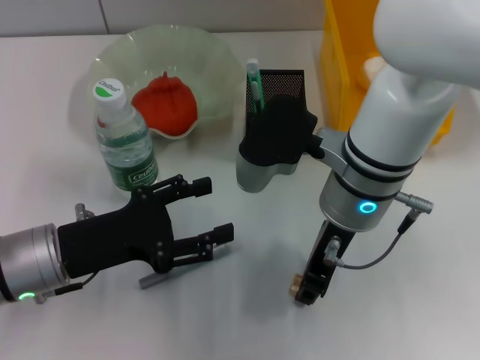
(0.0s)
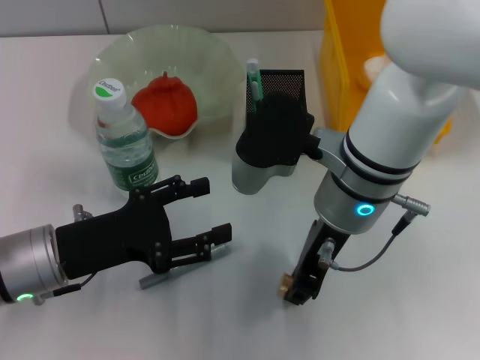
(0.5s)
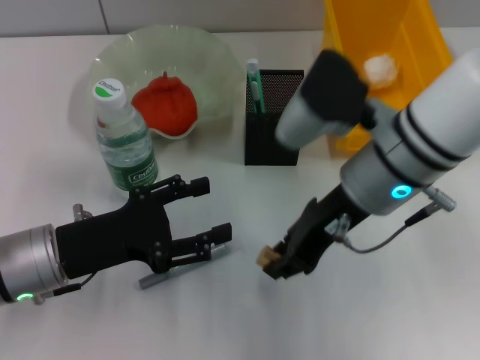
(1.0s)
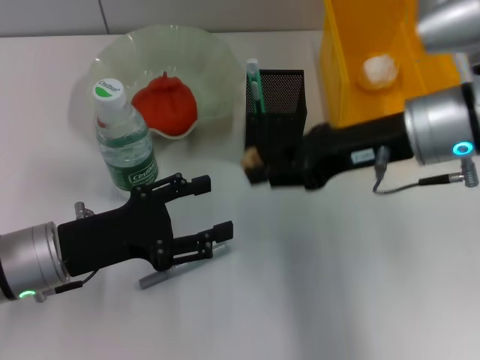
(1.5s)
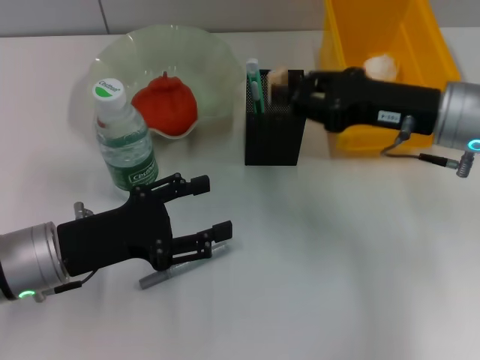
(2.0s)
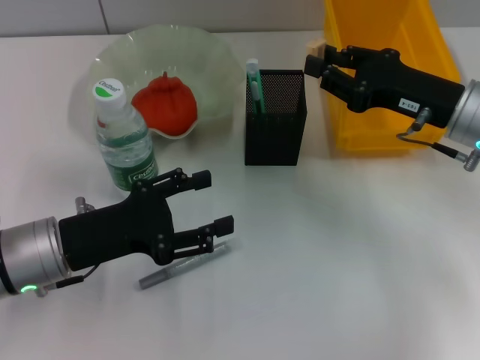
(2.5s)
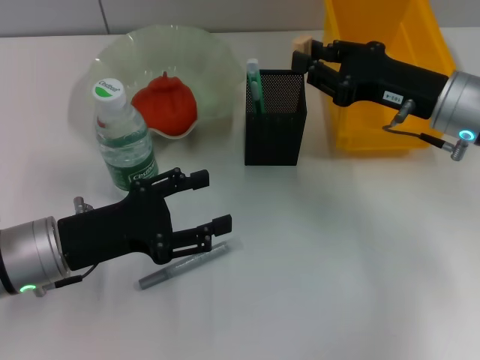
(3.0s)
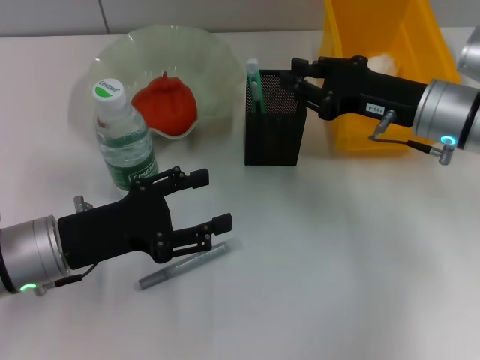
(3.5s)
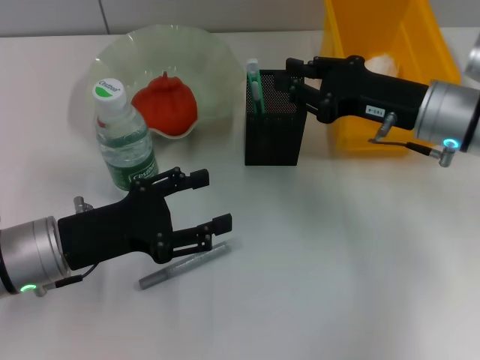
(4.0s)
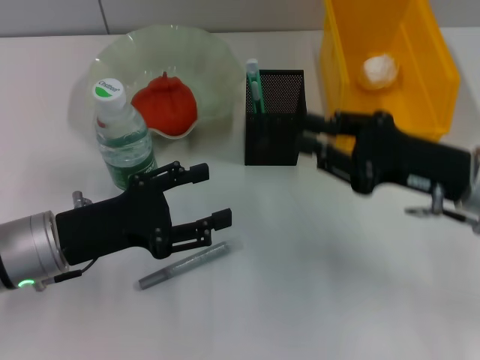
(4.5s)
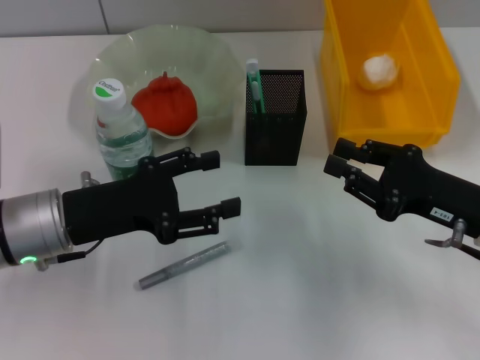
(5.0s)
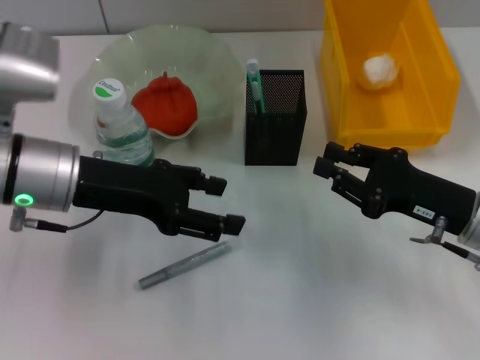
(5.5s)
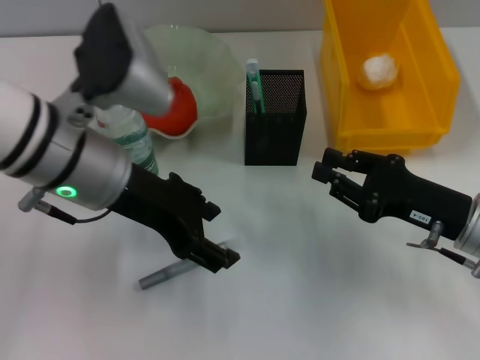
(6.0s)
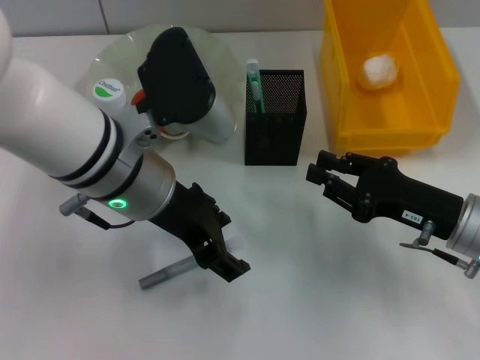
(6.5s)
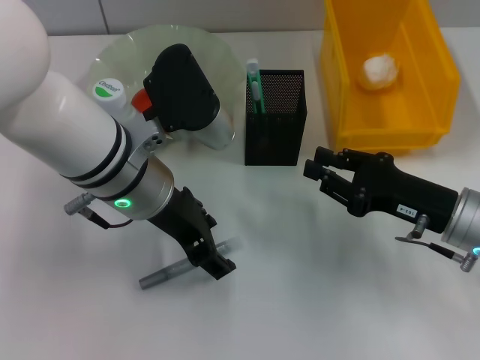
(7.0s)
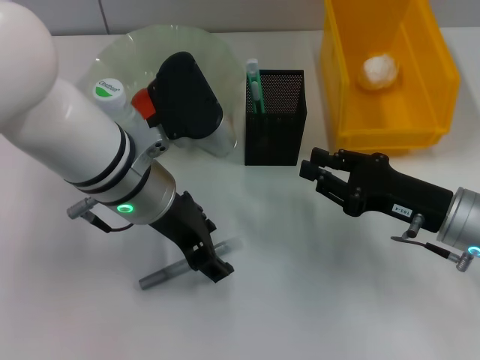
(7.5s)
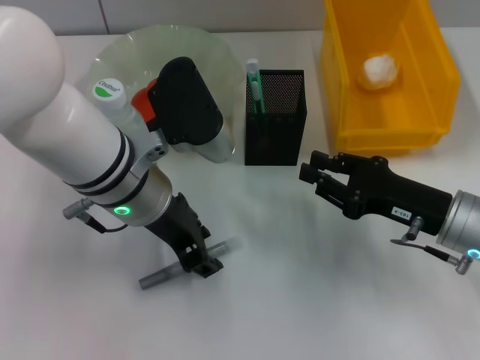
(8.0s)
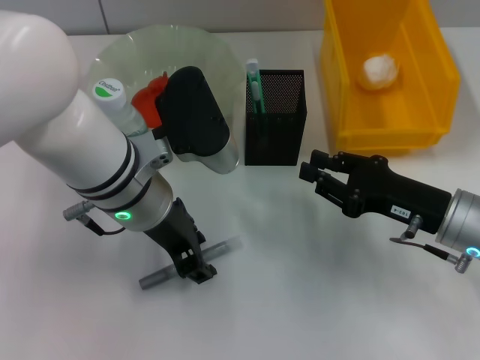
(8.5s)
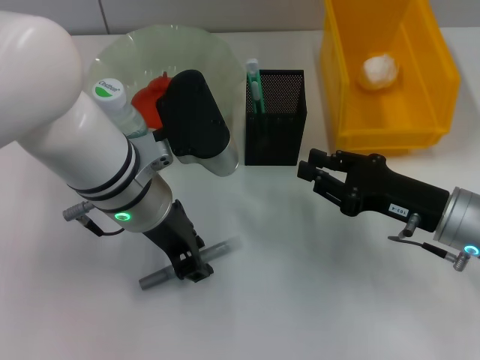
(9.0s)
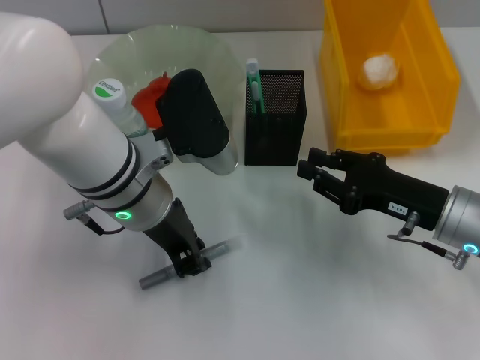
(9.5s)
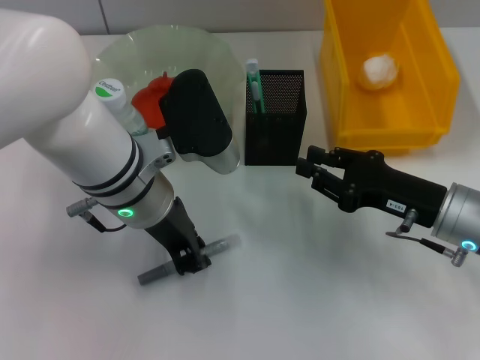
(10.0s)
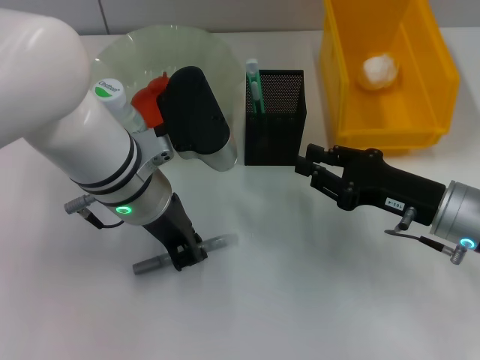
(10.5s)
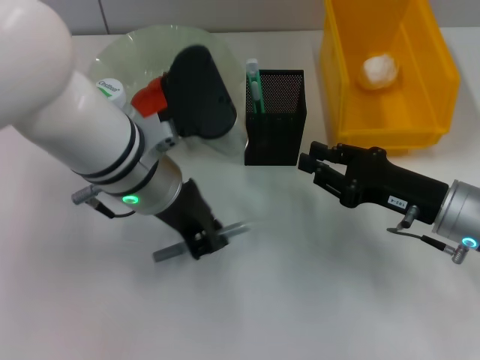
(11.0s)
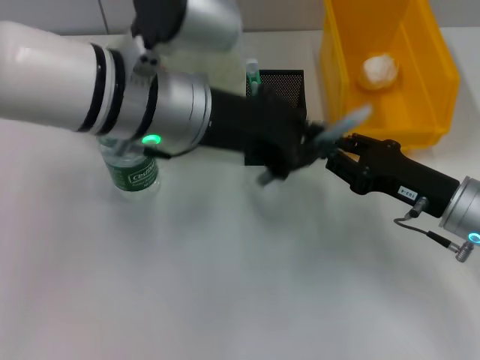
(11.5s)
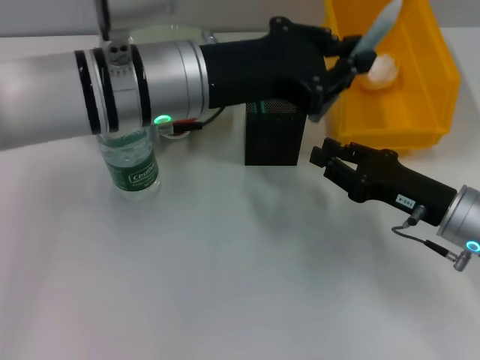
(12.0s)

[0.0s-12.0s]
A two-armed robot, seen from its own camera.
Step, 0.5s to 3.5s: Put the eraser into the pen holder with the right hand.
Step, 4.0s to 10.5s: Grab the gray glue with the left hand.
0.0s to 2.0s: The right gripper is displaced to the right by approximately 15 cm.
2.0s to 4.0s: The grippers move only a little.
4.0s to 6.0s: The left gripper is displaced upward, to the right and forward by roughly 15 cm. The right gripper is displaced backward and downward by roughly 10 cm.
6.0s to 8.0s: The left gripper moves about 5 cm.
8.0s to 10.0s: The left gripper closes its fingers.
10.0s to 12.0s: The left gripper heads upward, covering approximately 5 cm.

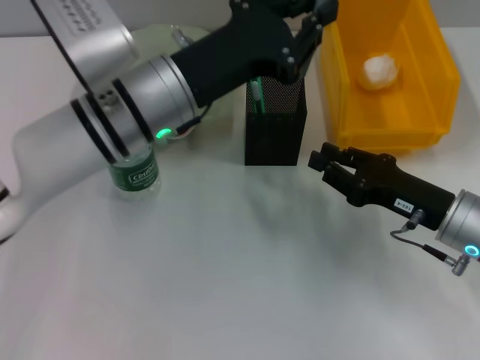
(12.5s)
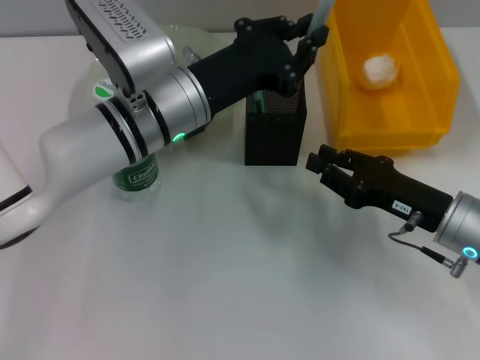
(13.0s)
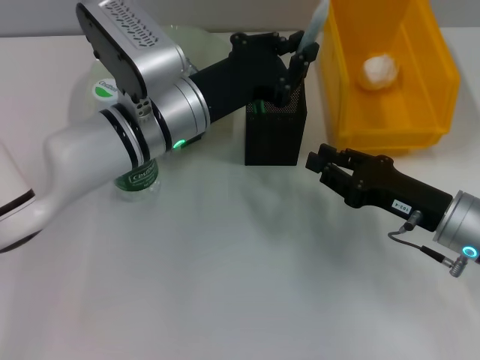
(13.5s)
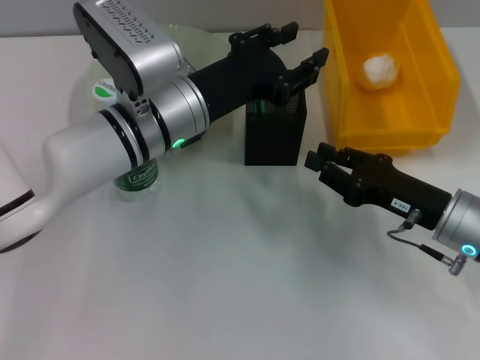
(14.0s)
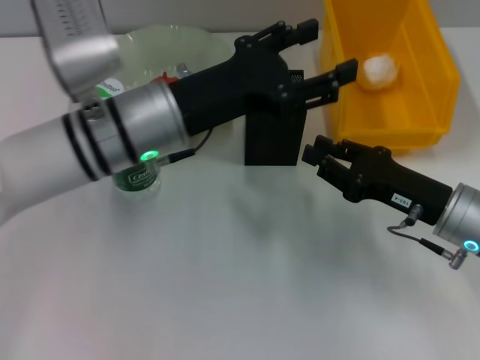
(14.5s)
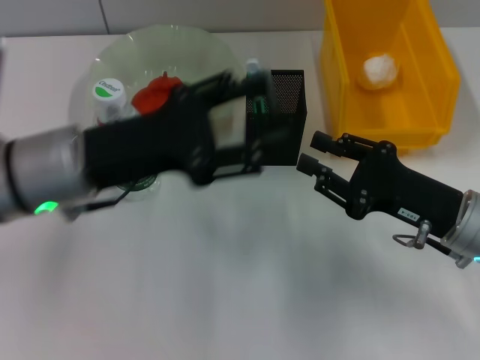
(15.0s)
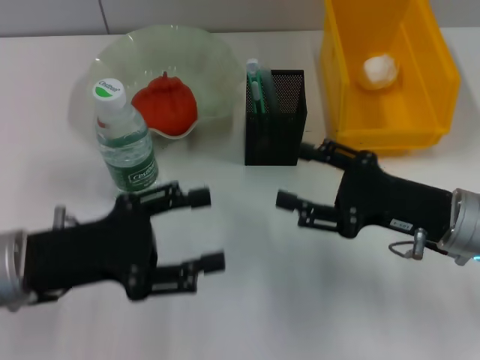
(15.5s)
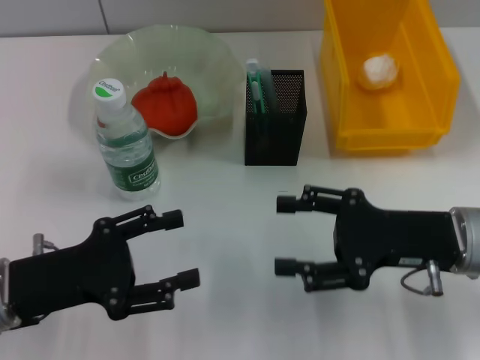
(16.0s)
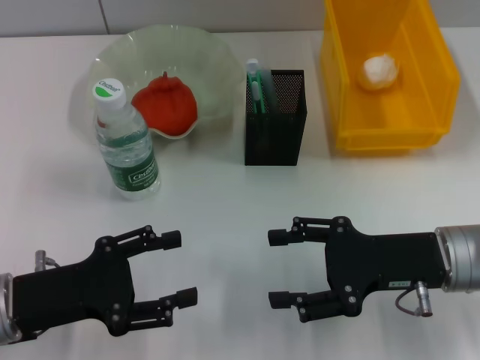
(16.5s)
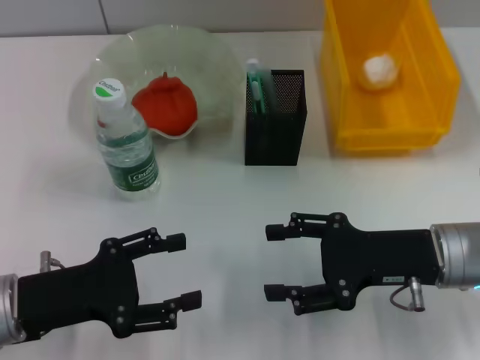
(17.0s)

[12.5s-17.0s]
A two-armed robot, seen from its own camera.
12.5s to 14.5s: The left gripper opens up.
14.5s to 17.0s: The right gripper opens its fingers. The left gripper goes about 20 cm to the left, backward and downward.

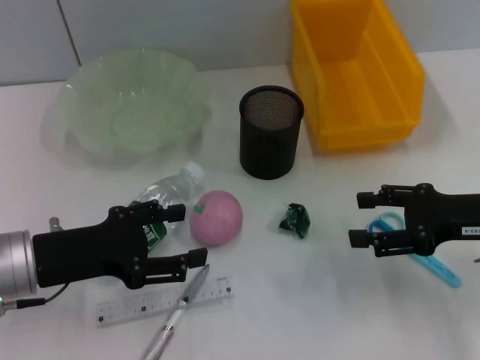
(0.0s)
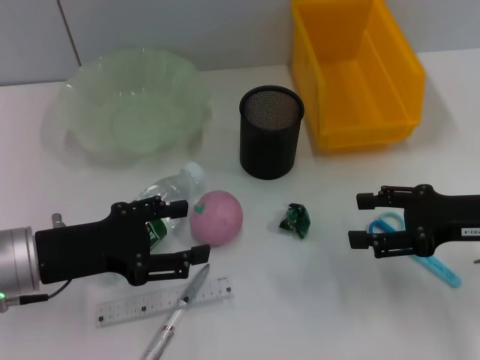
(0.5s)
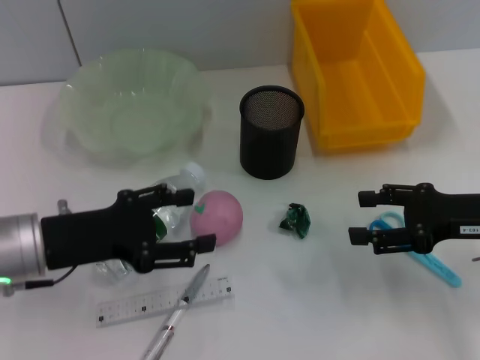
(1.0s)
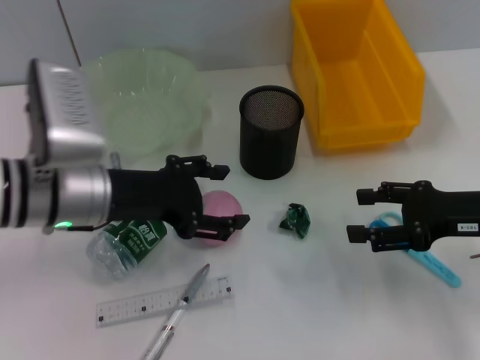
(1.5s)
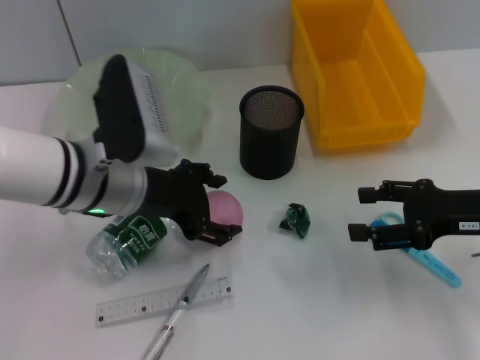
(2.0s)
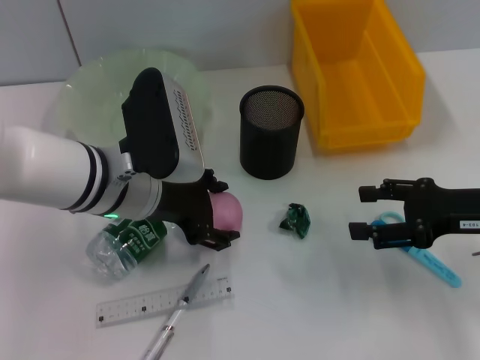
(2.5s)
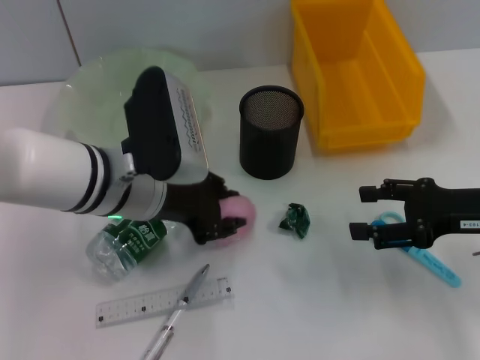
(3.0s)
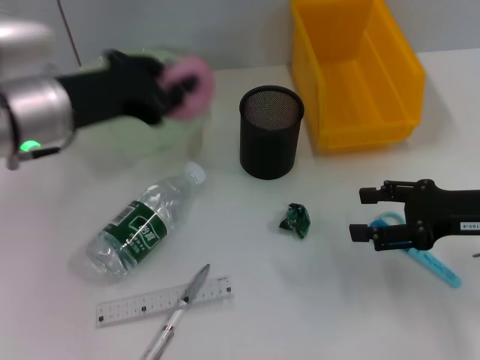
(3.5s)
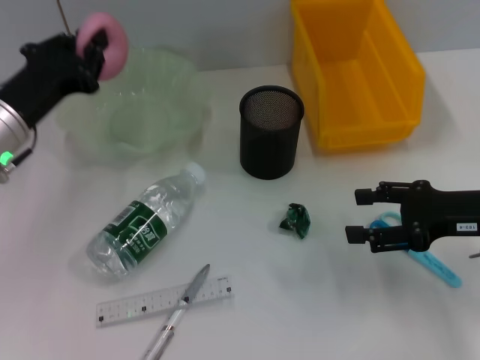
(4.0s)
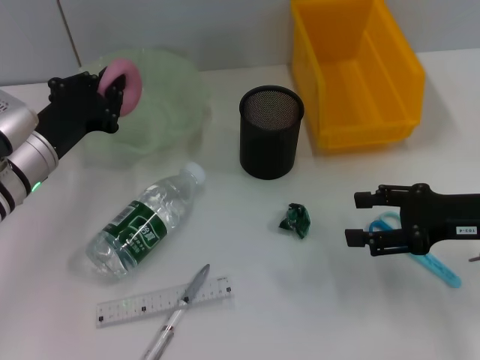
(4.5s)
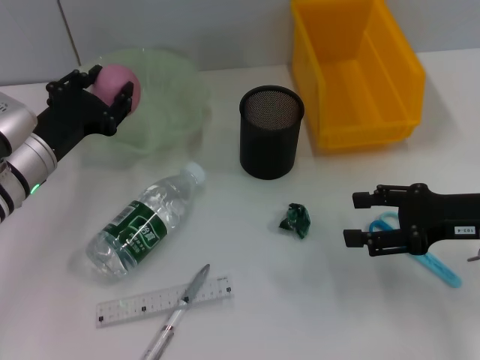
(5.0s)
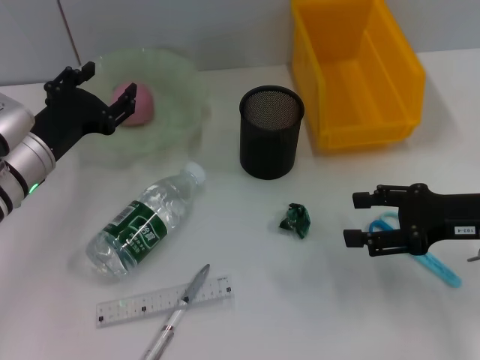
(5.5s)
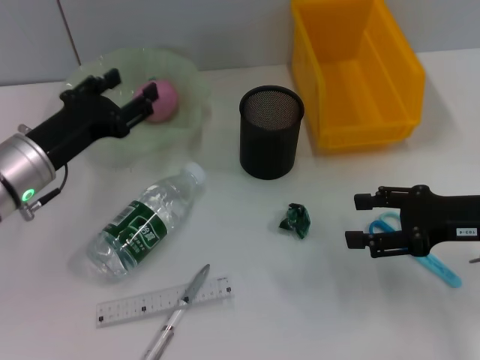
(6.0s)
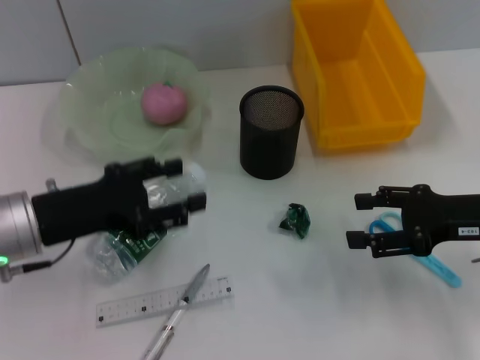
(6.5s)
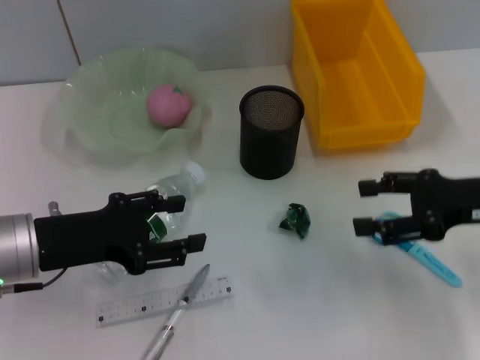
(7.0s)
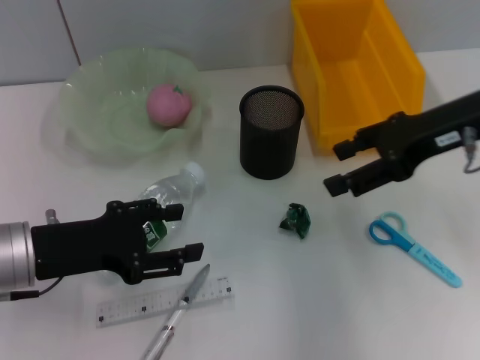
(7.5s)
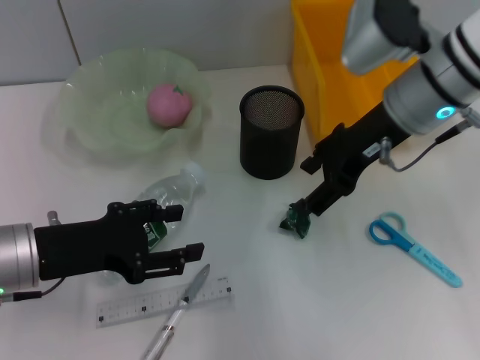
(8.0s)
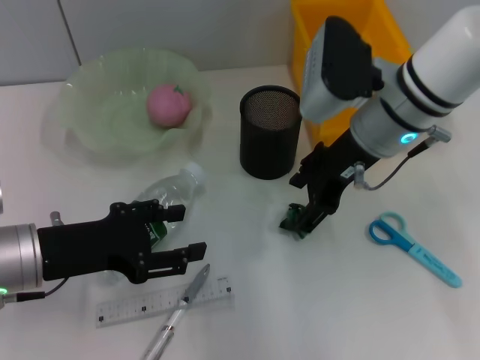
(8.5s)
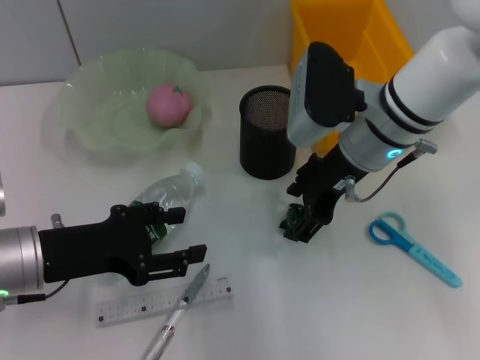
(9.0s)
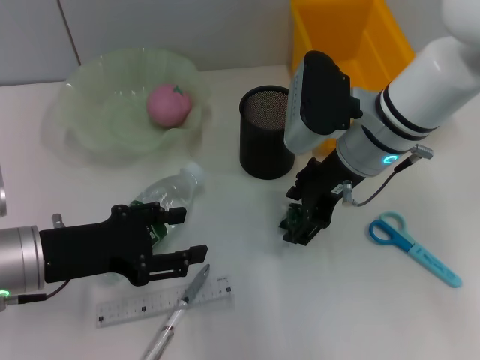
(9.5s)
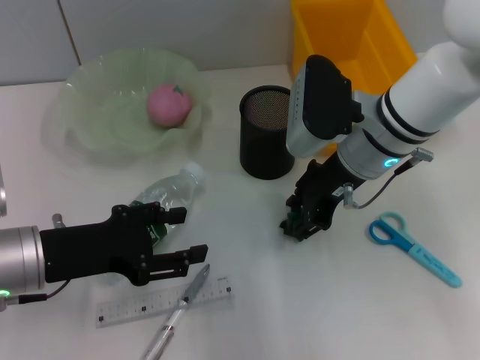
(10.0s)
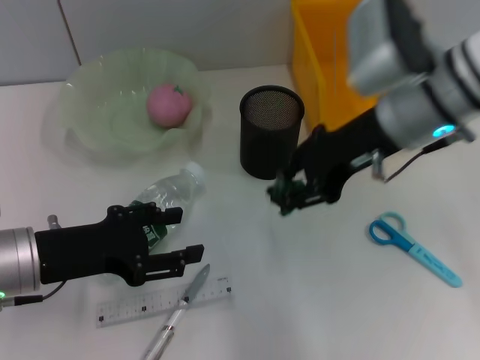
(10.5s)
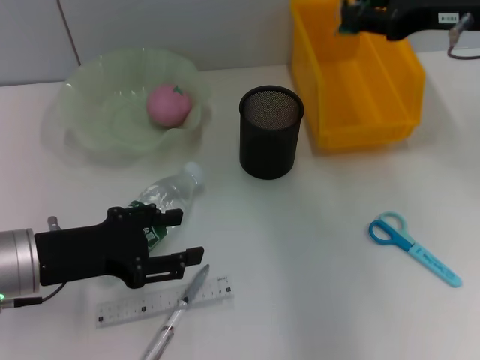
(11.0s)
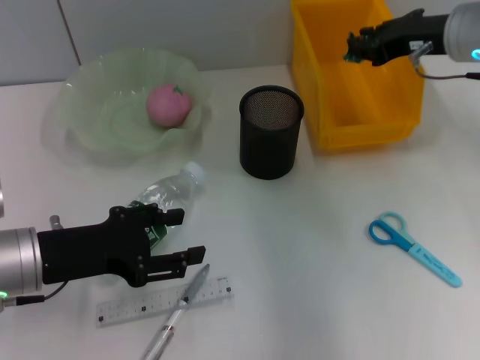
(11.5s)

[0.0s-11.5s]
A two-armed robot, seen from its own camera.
Step, 0.0s to 2.0s: Grab the peach with the left hand.
Step, 2.5s to 5.0s: Place the peach into the fruit bowl with the left hand.
Step, 5.5s to 10.0s: Grab the plastic with the right hand.
0.0s to 2.0s: The left gripper is displaced to the right and forward by some 10 cm.
2.0s to 4.0s: The left gripper travels to the left by approximately 10 cm, and closes.
4.0s to 6.0s: The left gripper shifts by about 5 cm, and opens.
6.0s to 7.5s: The right gripper is displaced upward, forward and to the left by roughly 15 cm. Meanwhile the left gripper heads backward, covering approximately 5 cm.
7.5s to 9.5s: The right gripper goes about 15 cm to the left and downward.
9.5s to 11.5s: The right gripper shifts approximately 10 cm to the right and upward, and closes.
